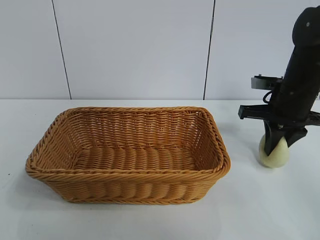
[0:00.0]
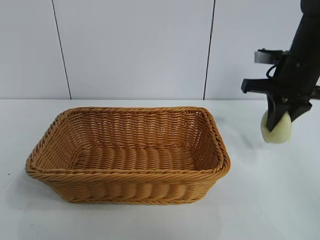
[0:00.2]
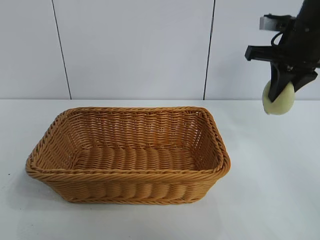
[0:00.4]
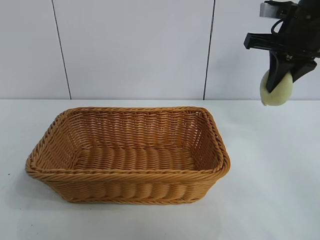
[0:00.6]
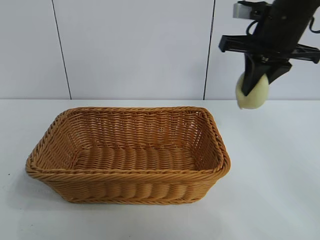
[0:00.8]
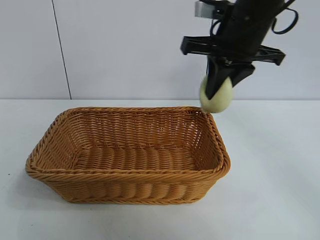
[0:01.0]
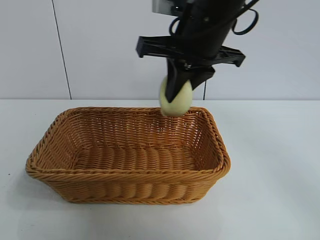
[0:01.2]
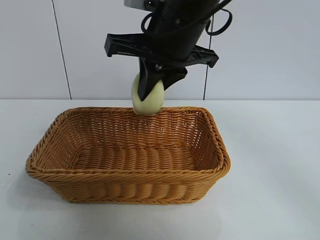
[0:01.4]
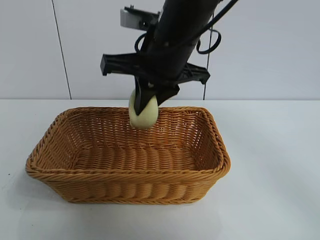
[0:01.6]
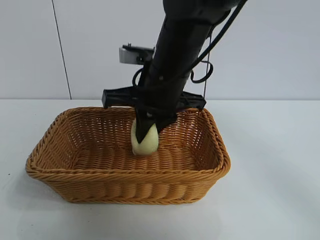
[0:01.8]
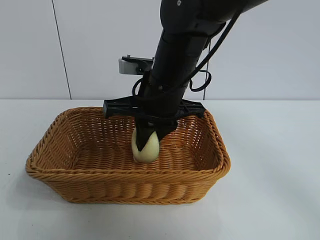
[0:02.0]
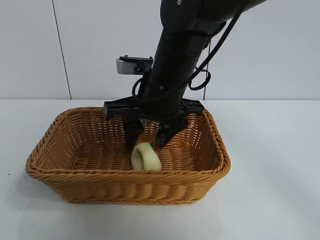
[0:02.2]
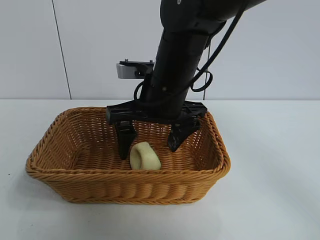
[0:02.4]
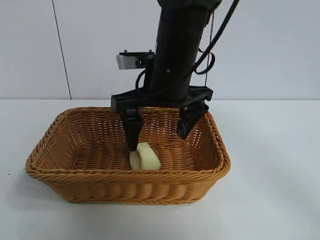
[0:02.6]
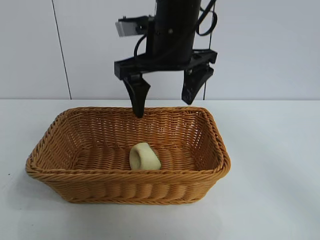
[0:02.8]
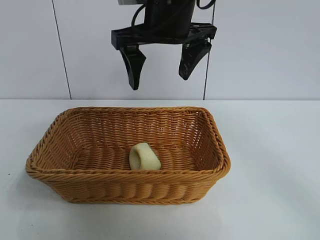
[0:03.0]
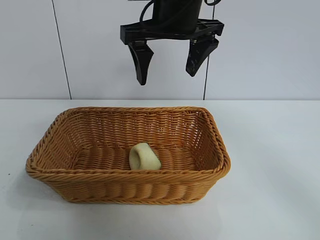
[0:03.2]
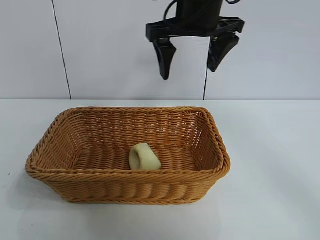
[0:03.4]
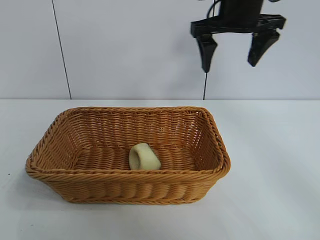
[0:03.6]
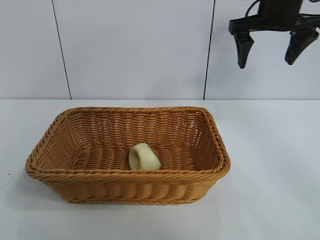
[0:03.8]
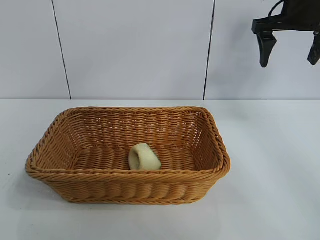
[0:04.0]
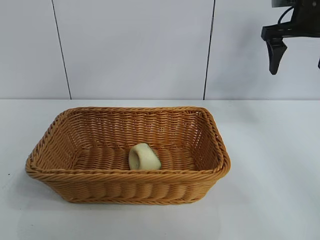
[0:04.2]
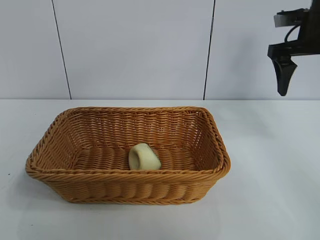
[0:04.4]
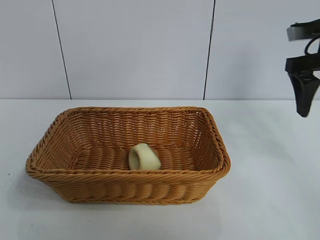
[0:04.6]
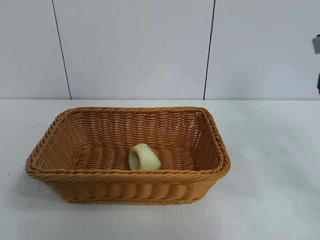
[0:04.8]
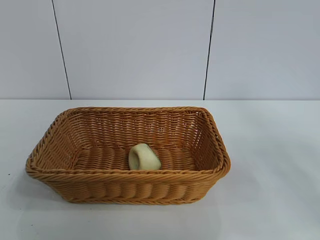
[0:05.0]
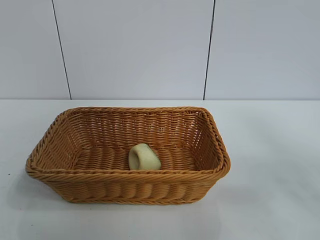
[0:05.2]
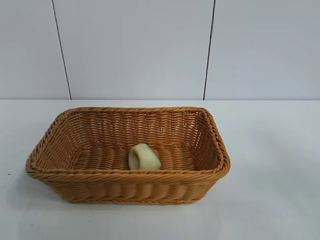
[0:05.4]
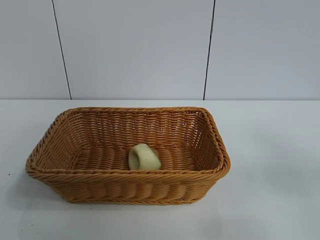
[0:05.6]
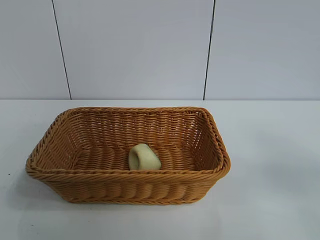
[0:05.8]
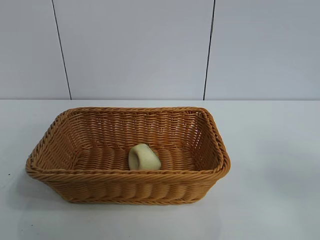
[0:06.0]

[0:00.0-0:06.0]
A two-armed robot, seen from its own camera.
Task of the whole recording: pick up the egg yolk pastry and put it into the basket.
Step, 0:00.0 to 0:02.4: Place the egg yolk pastry in the basket with right gripper.
